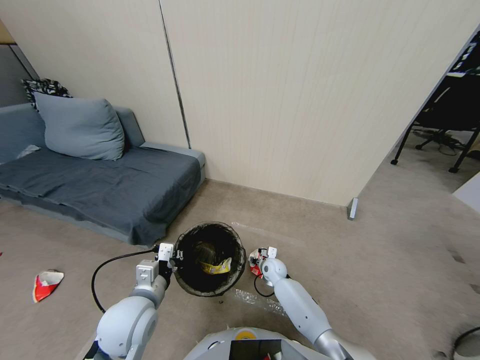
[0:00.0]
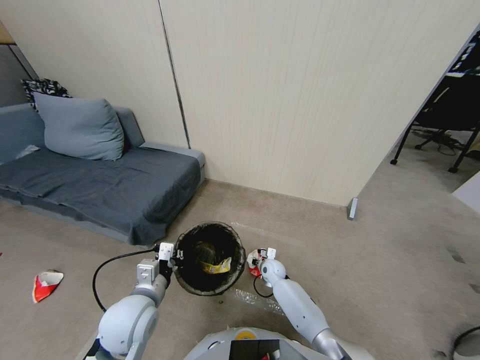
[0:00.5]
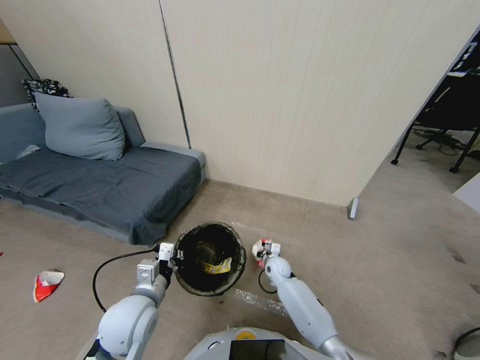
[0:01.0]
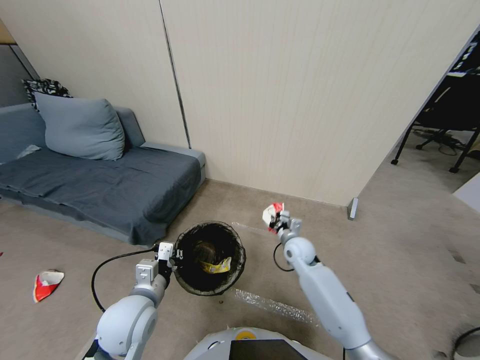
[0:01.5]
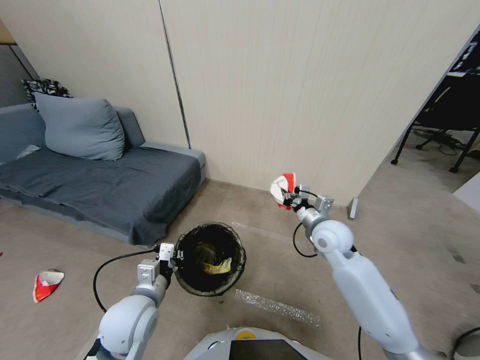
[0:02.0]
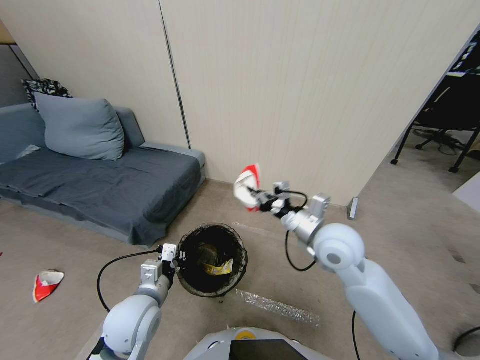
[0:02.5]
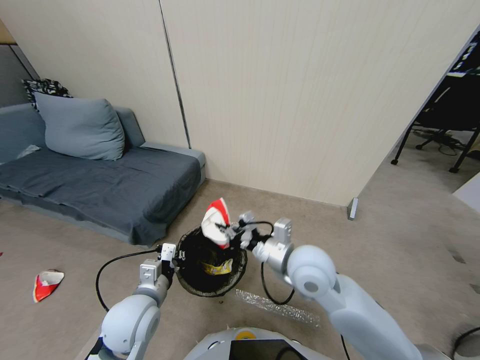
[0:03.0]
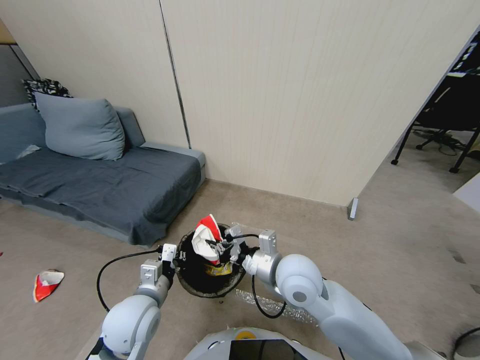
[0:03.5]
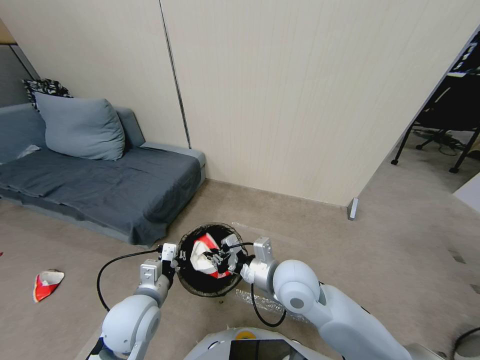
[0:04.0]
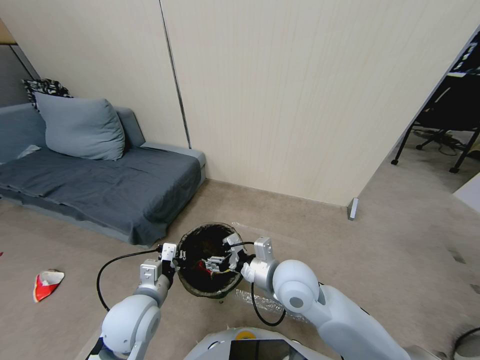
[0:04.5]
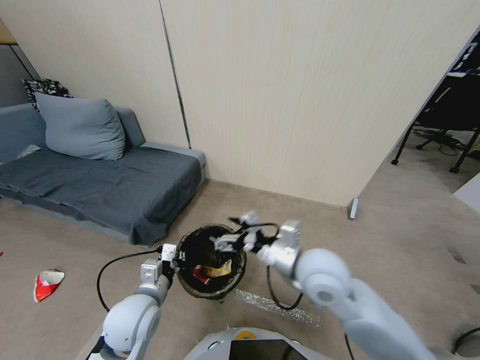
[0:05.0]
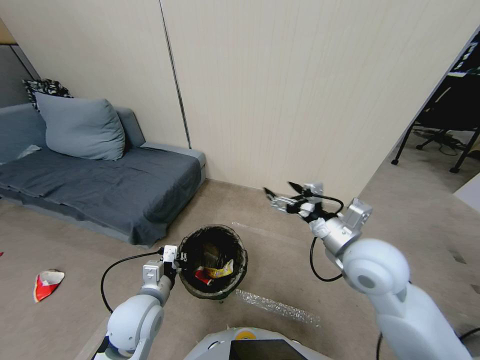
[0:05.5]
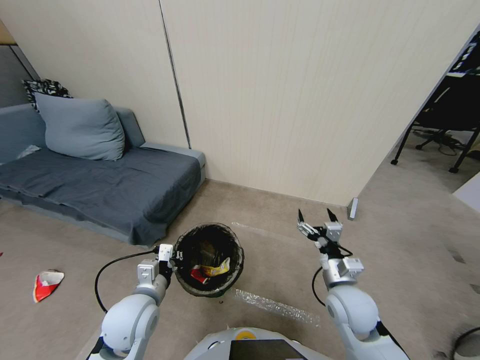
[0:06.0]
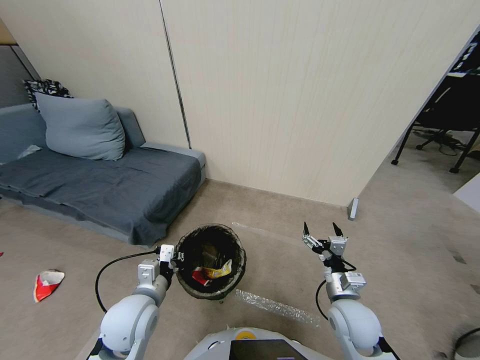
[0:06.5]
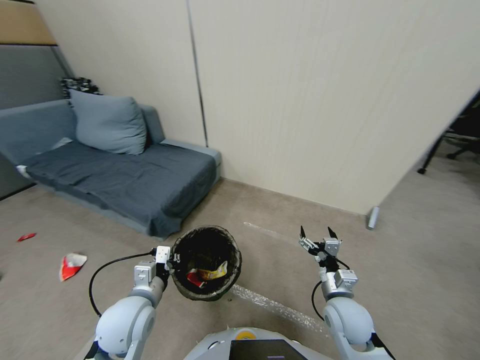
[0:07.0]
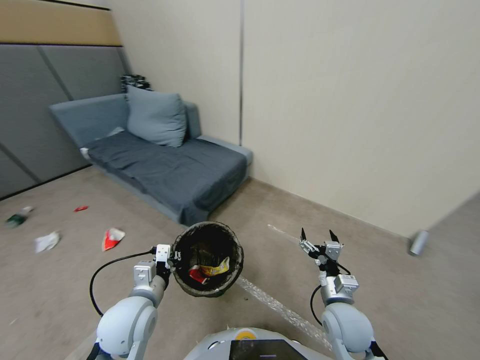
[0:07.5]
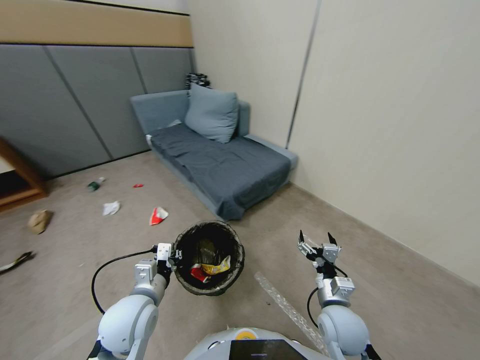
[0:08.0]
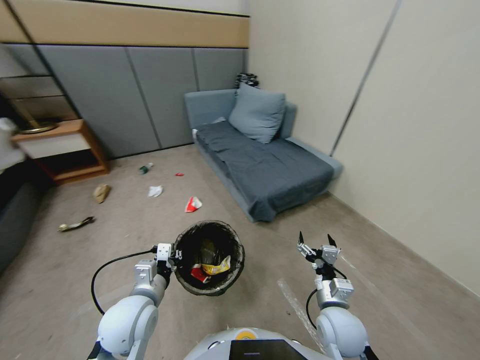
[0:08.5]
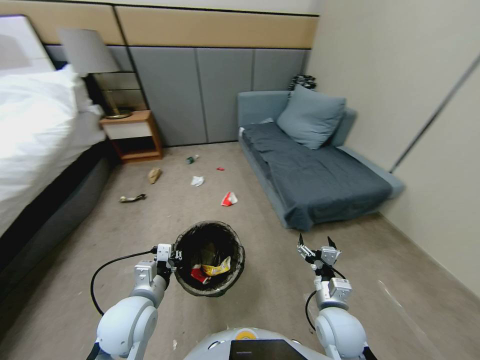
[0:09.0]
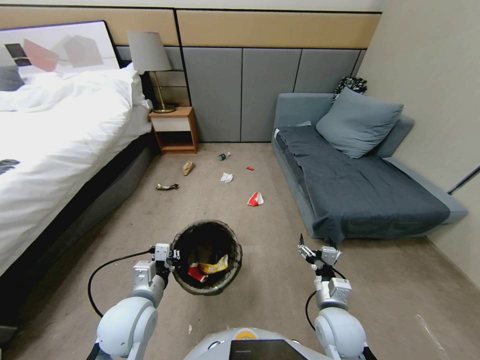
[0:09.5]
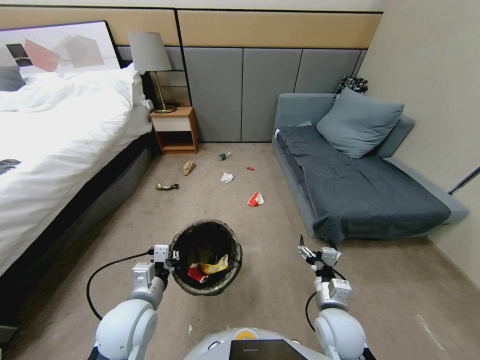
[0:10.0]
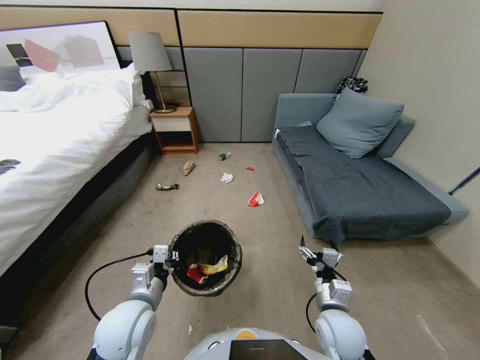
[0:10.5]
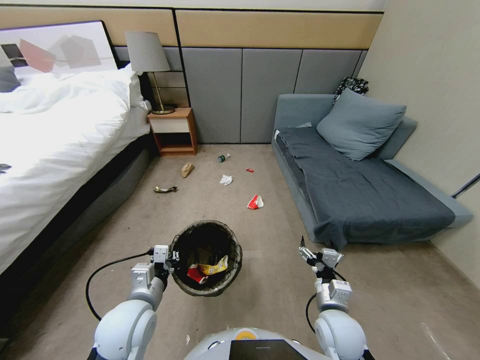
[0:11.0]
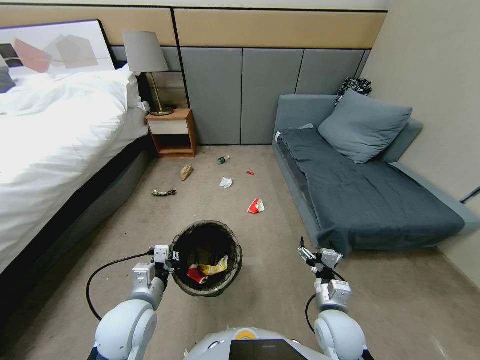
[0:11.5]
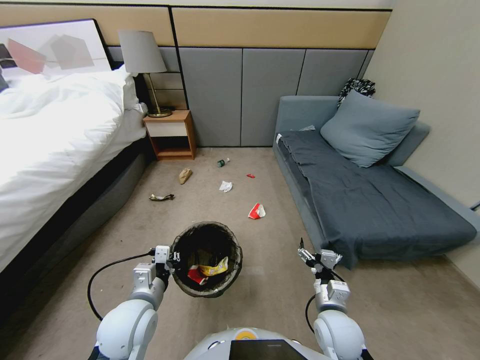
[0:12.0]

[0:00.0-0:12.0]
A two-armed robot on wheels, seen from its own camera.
Task of the whole recording: Pick up the trash bin, then pick up the garbage from the floor and place it into the trash bin.
0:00.0 to 0:02.0: The right gripper goes approximately 30 cm upward, and closes its fingers.
0:02.0 to 0:04.0: The right gripper is displaced to the left and backward by roughly 15 cm, and opens.
0:04.0 to 0:06.0: The right gripper shifts about 15 cm to the right, and opens its fingers.
0:06.0 to 0:08.0: The right gripper is displaced downward by roughly 5 cm.
0:10.0 to 0:12.0: Both grippers stay about where they are.

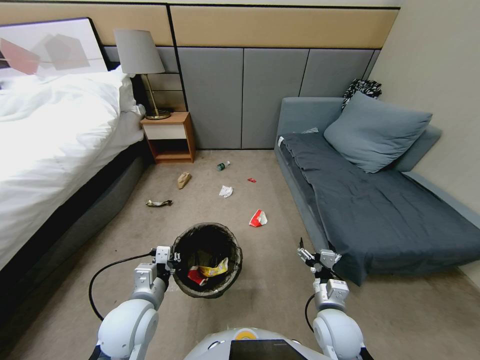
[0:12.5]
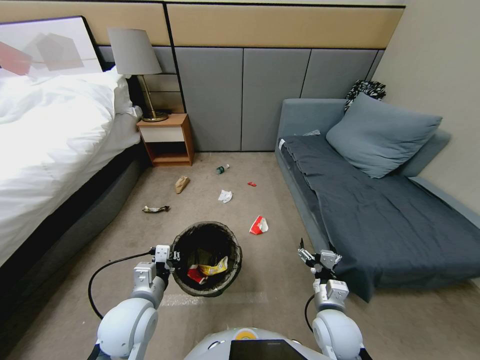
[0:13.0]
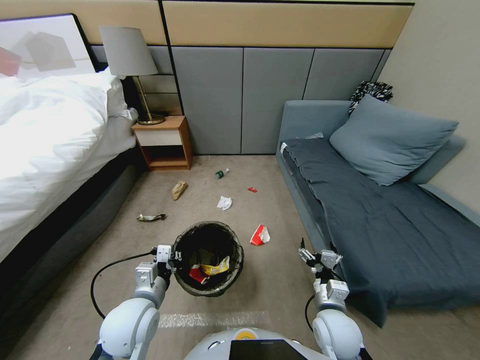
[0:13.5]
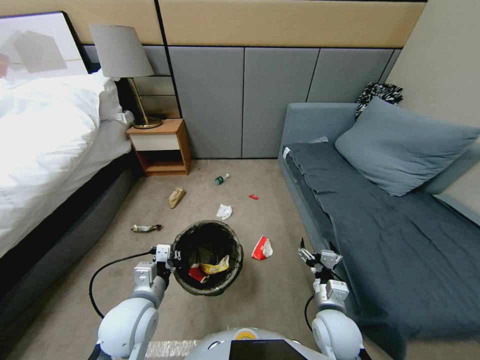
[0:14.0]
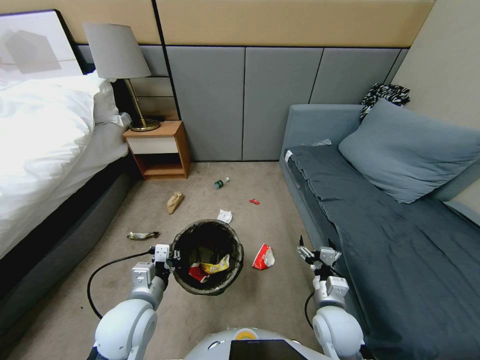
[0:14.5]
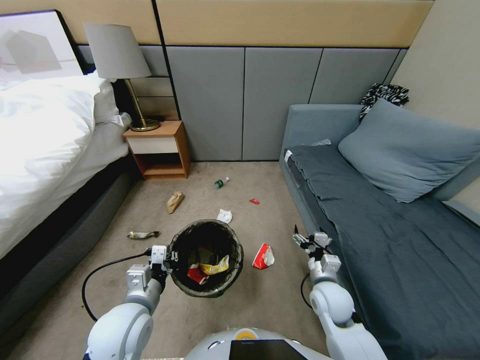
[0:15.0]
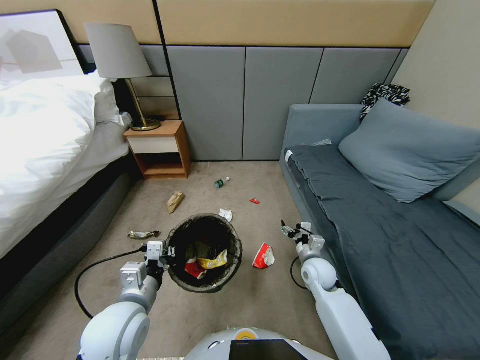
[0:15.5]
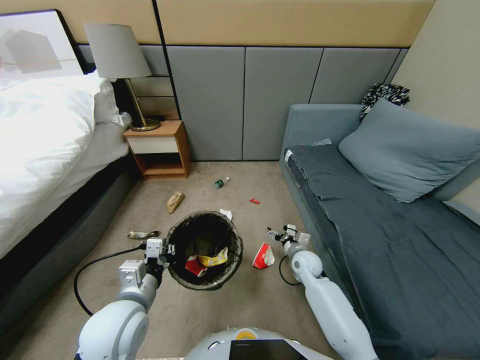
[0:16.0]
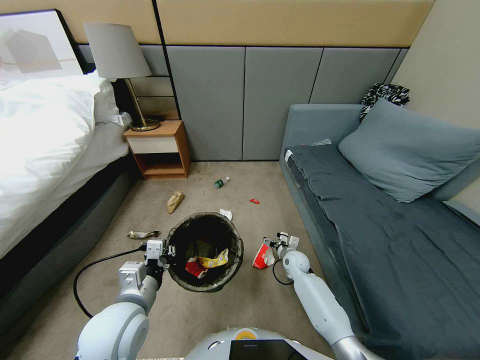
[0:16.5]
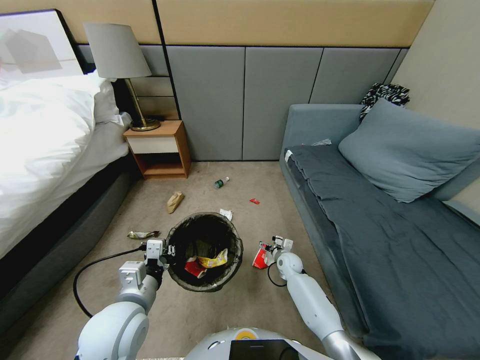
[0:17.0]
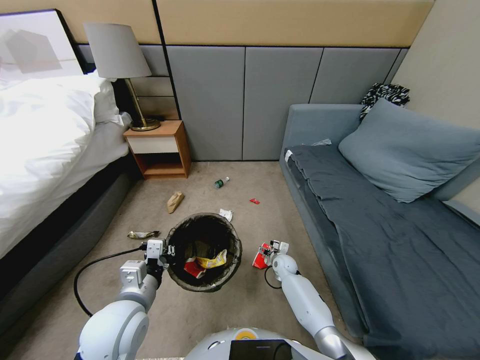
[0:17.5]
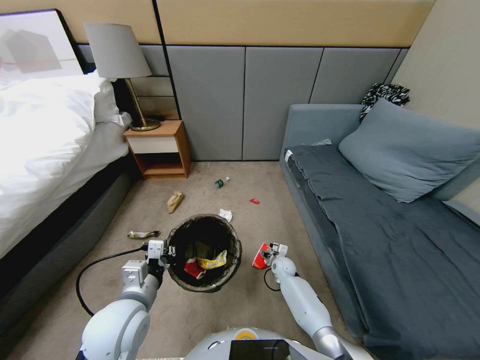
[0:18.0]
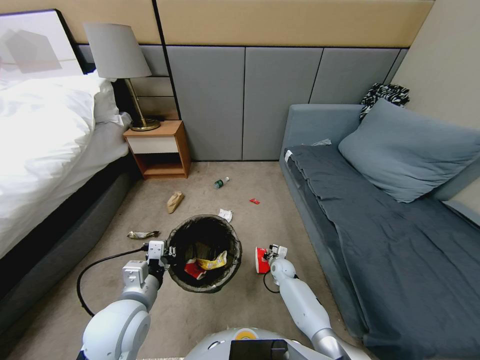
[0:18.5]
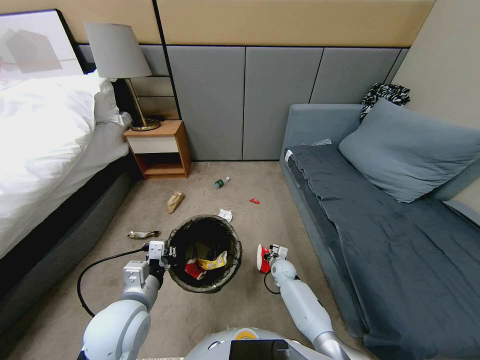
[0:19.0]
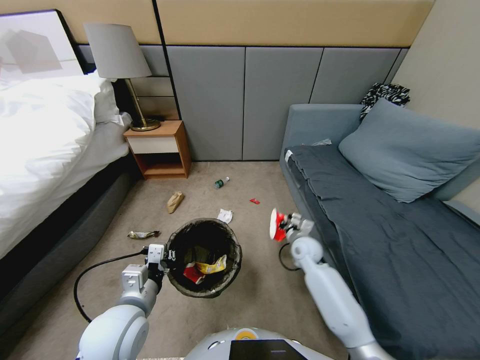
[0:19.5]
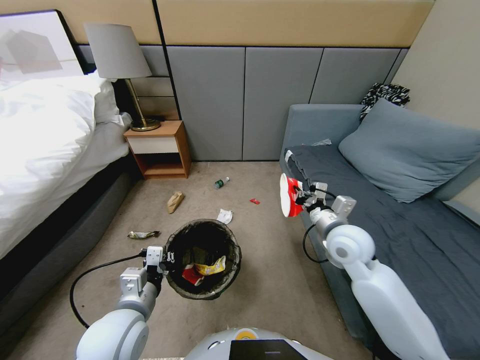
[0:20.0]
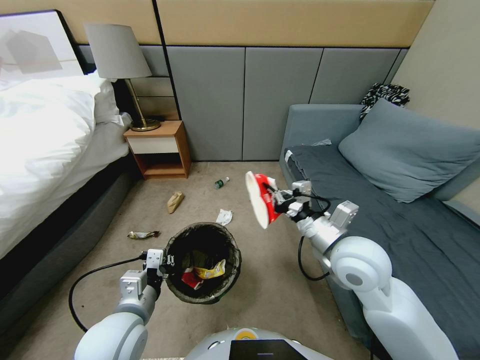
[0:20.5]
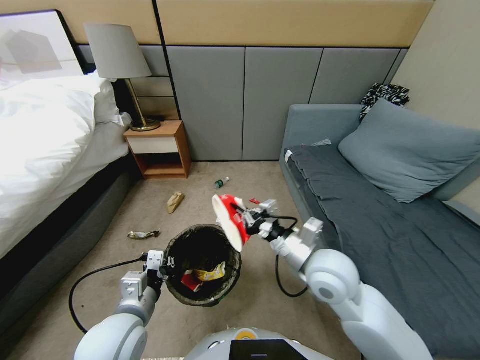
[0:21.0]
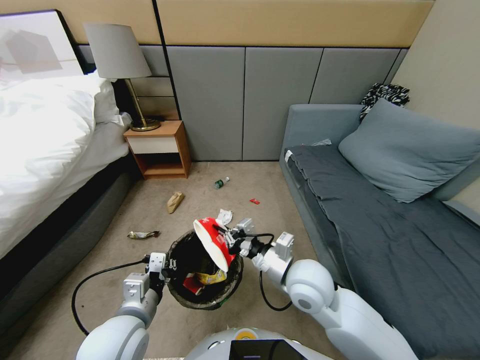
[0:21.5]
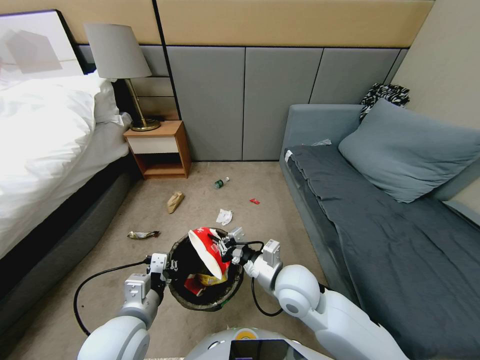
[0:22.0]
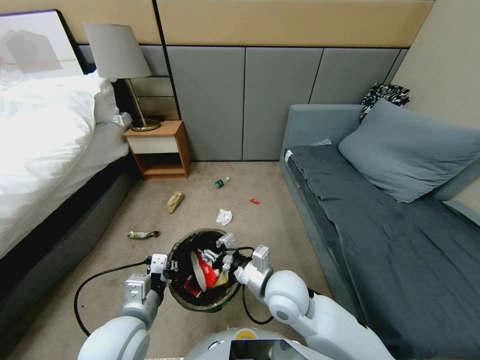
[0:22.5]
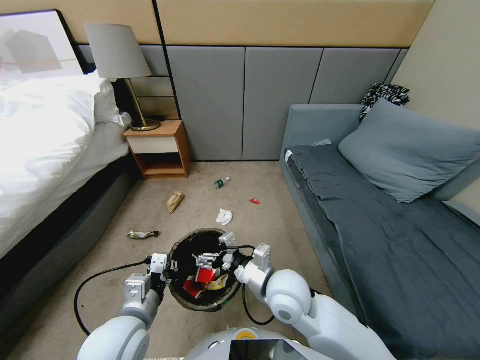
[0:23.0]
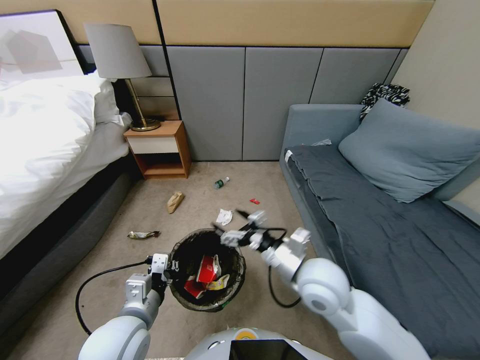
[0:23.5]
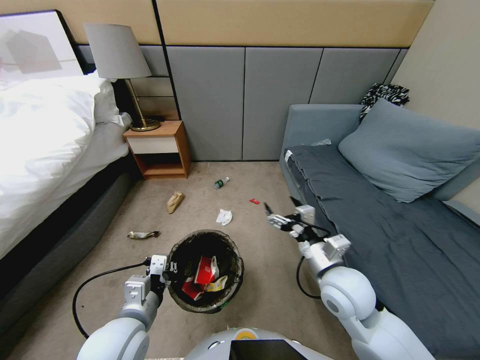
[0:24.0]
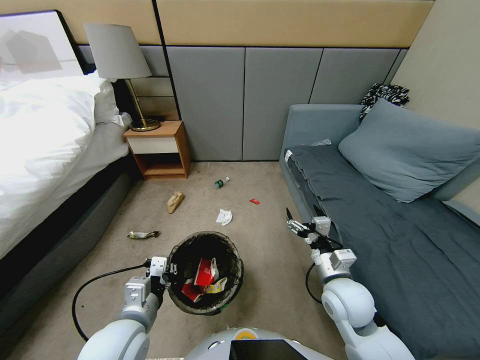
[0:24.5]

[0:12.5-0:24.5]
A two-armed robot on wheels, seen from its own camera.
Task of the whole recording: Pick up the trash bin, then pick up the garbage from the floor and place it into the trash bin.
0:14.5 to 0:16.5: The right gripper heads forward and downward, covering roughly 25 cm.
0:16.5 to 0:18.5: The right gripper heads downward, covering about 5 cm, and closes.
0:18.5 to 0:20.5: The right gripper heads upward, covering about 40 cm.
0:20.5 to 0:22.5: The right gripper moves to the left and downward, approximately 15 cm, and opens.
0:22.5 to 0:24.5: The right gripper travels to the right by some 15 cm, and opens up.

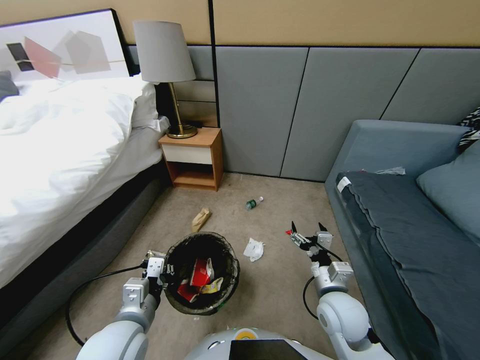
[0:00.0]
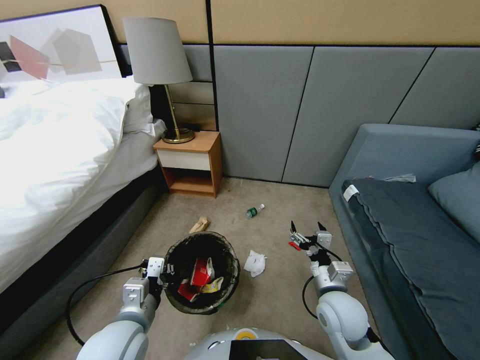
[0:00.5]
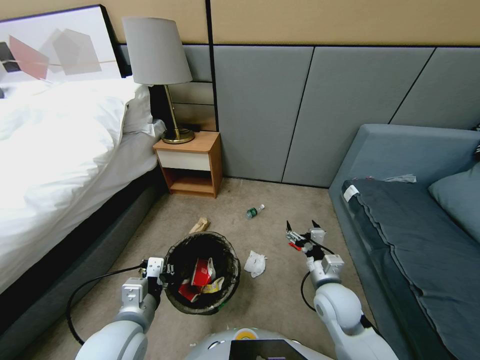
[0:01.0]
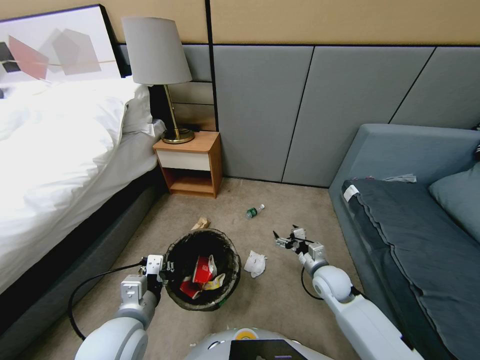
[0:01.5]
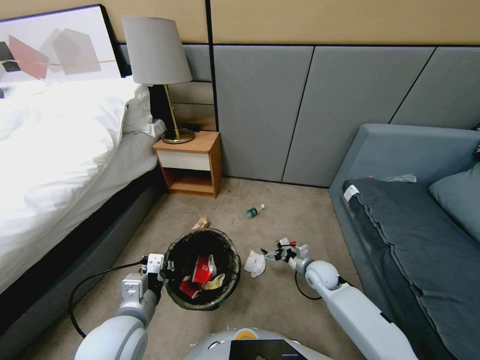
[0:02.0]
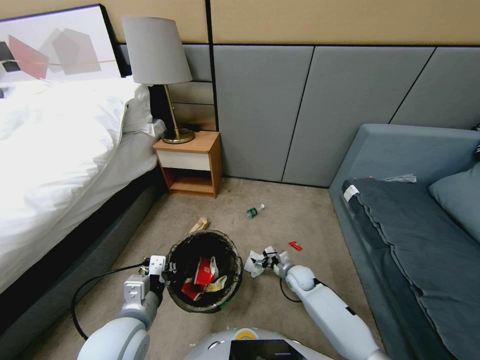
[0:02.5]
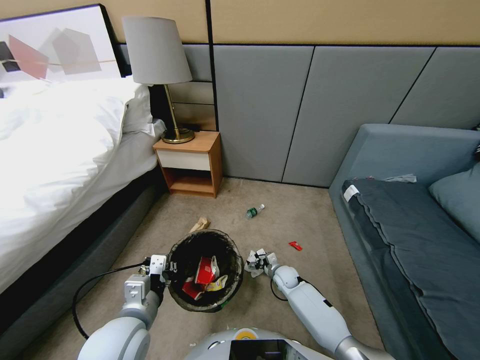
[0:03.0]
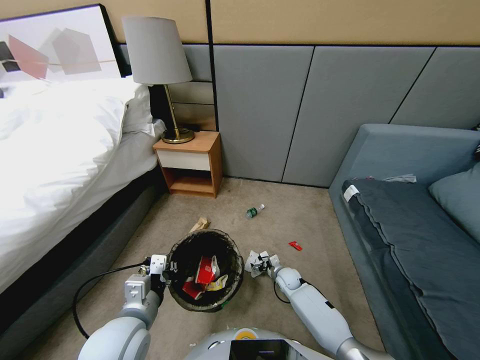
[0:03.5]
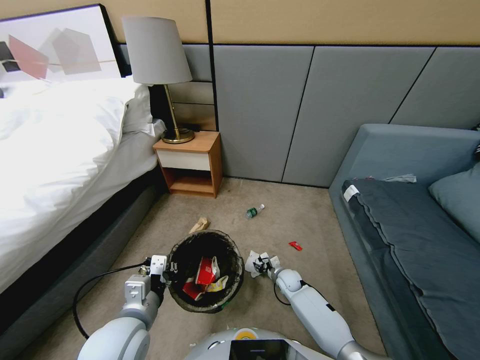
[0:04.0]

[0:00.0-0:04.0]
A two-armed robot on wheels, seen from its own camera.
Task of the whole recording: Pick up the trash bin, then pick up the garbage from the floor and place it into the trash bin.
0:00.0 to 0:02.0: The right gripper moves downward and forward, roughly 20 cm.
0:02.0 to 0:04.0: The right gripper is displaced downward and to the left by roughly 15 cm, and closes its fingers.
